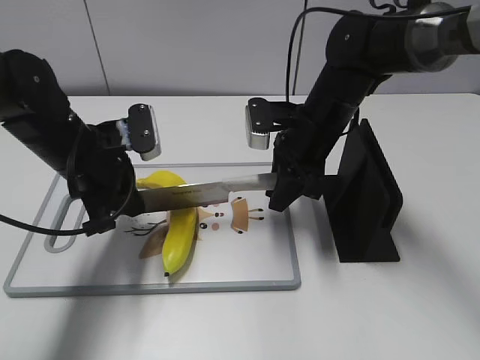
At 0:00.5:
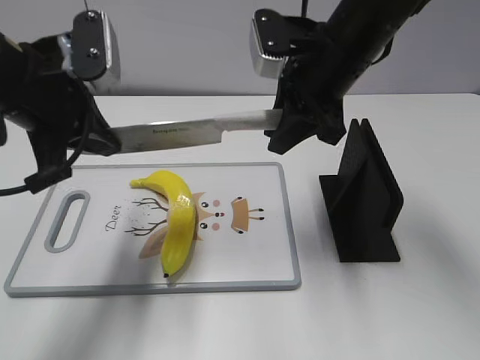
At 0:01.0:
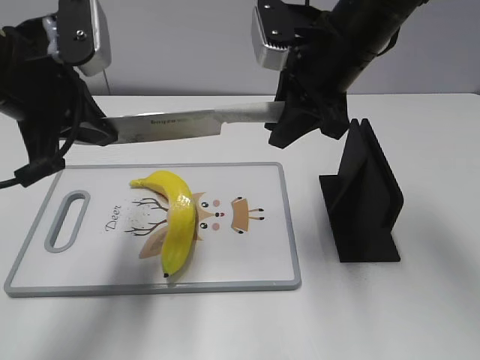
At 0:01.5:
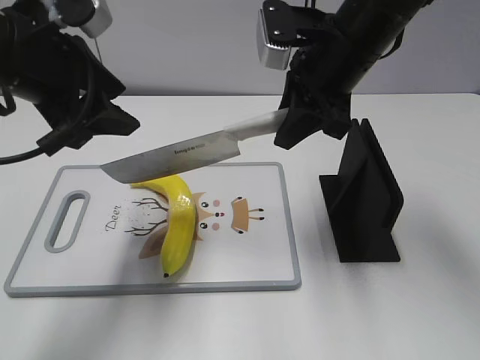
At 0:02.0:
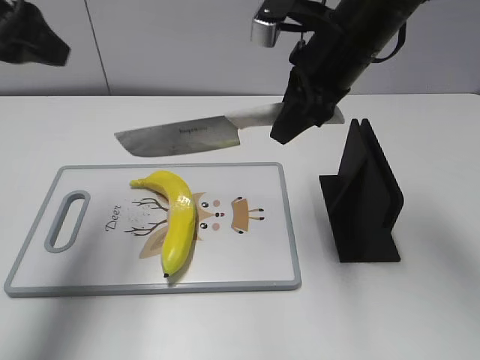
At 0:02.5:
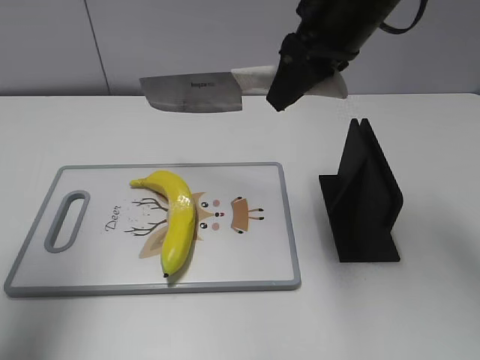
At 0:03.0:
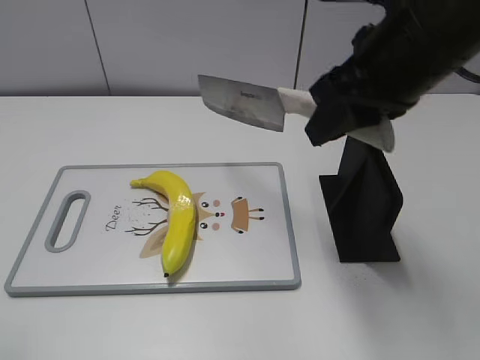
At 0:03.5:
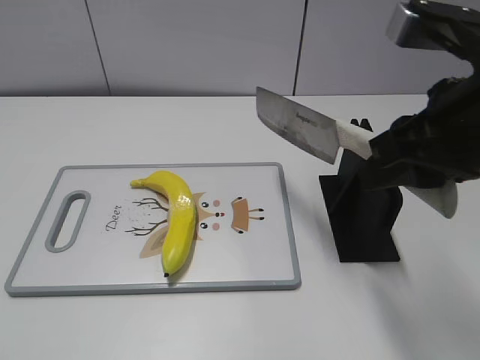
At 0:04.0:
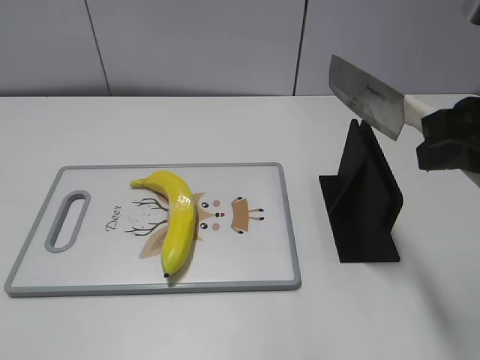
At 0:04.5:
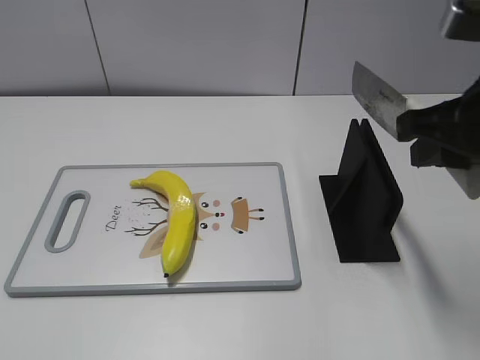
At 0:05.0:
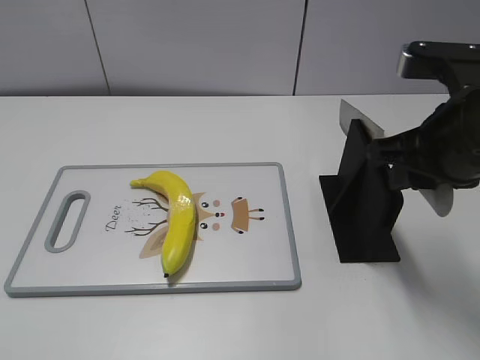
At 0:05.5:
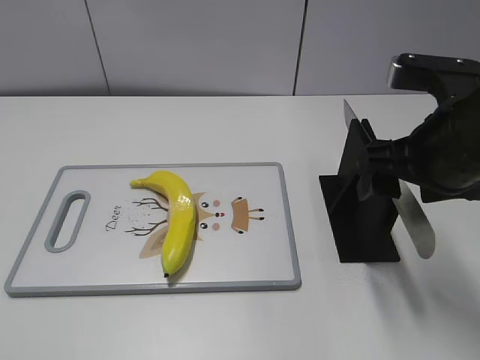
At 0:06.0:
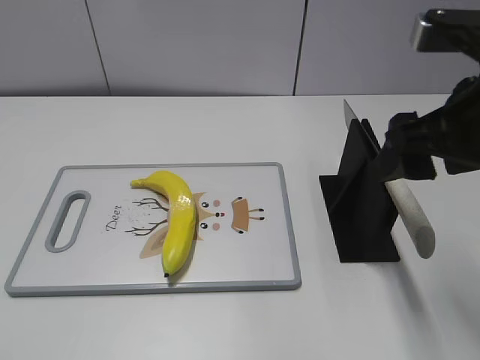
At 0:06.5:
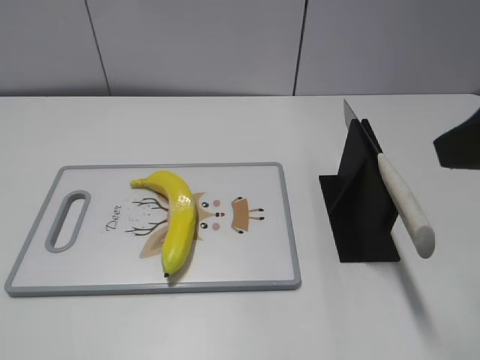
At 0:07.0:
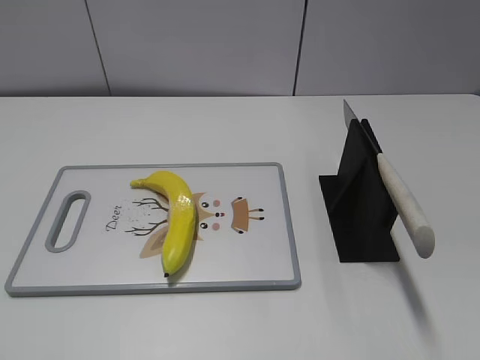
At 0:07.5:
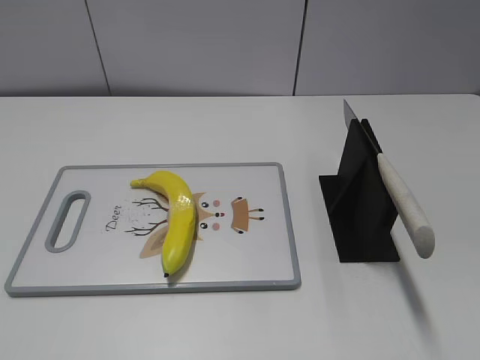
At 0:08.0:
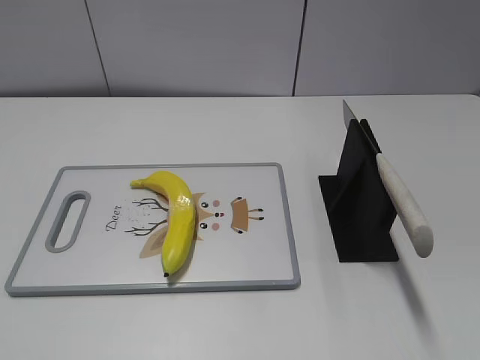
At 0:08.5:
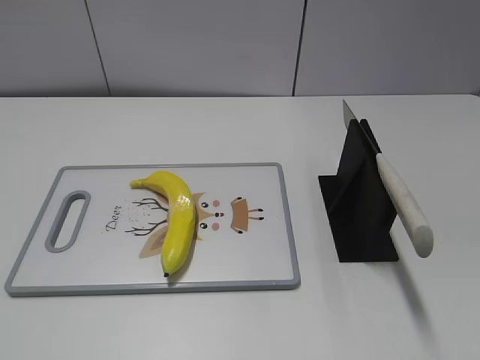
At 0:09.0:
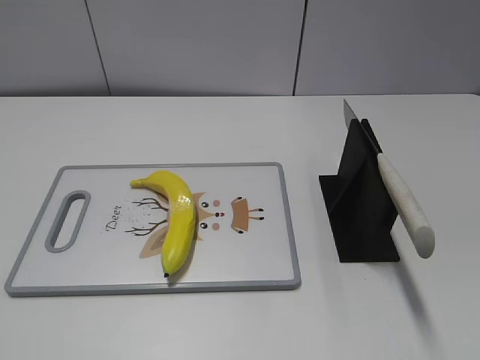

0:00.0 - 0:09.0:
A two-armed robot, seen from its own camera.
Task of the whole recording: cut plastic banana.
Step, 0:02.5 - 0:04.0: Lift the knife with your right hand.
Step, 0:04.5 - 0:09.0: Place the knife on the storage rack with your right hand.
0:00.0 - 0:02.0: The two grippers go approximately 15 cm upward. The left gripper opens its fingers.
0:02.0 - 0:04.5: The left gripper travels backward by some 30 cm; the right gripper goes roughly 15 cm backward and to the right.
0:04.5 - 0:07.0: The right gripper travels backward by about 15 cm, and opens up.

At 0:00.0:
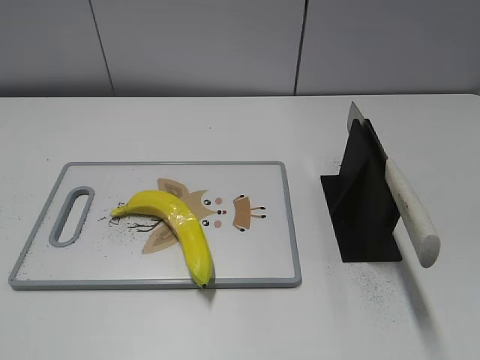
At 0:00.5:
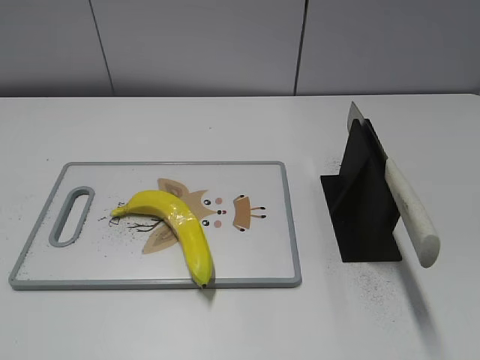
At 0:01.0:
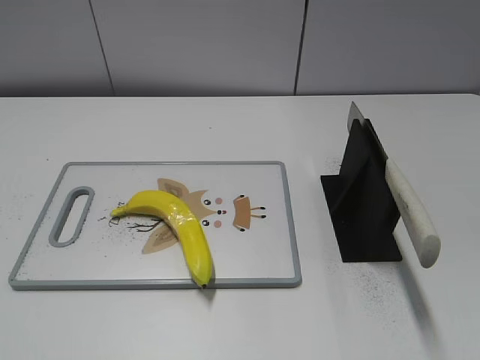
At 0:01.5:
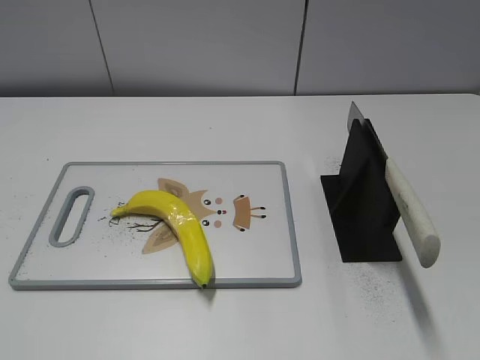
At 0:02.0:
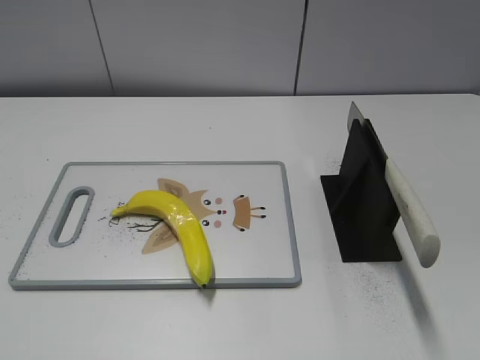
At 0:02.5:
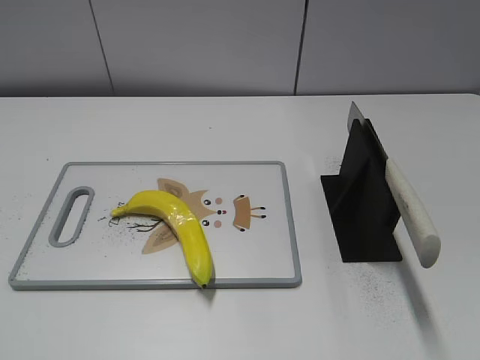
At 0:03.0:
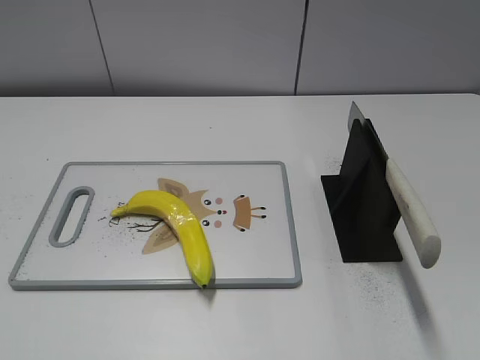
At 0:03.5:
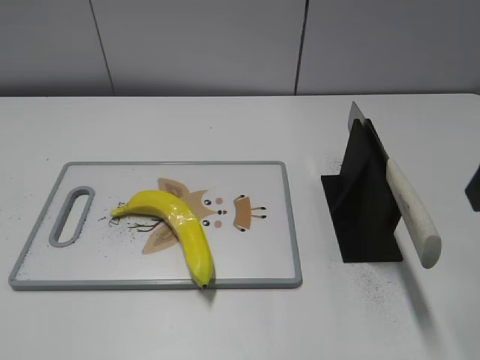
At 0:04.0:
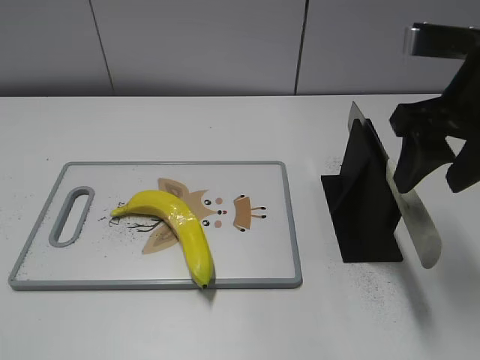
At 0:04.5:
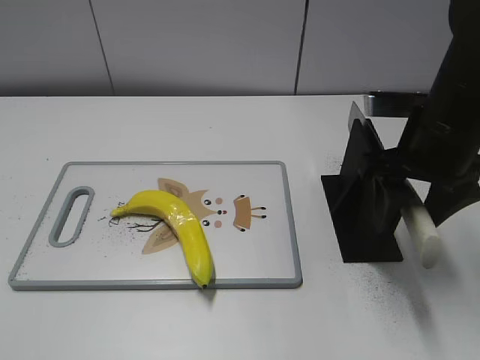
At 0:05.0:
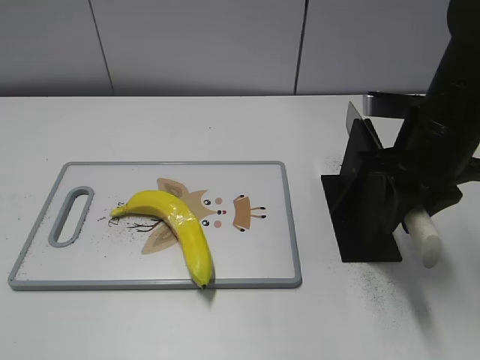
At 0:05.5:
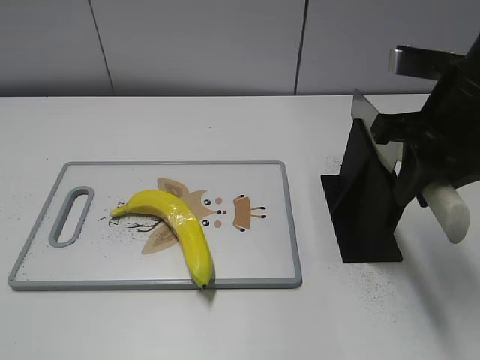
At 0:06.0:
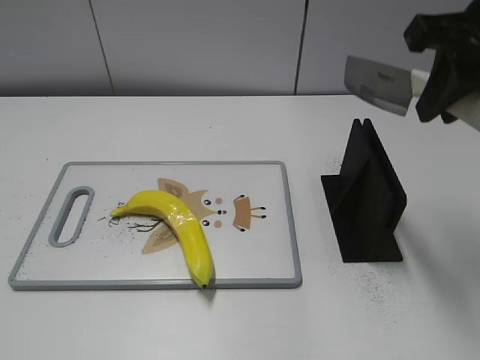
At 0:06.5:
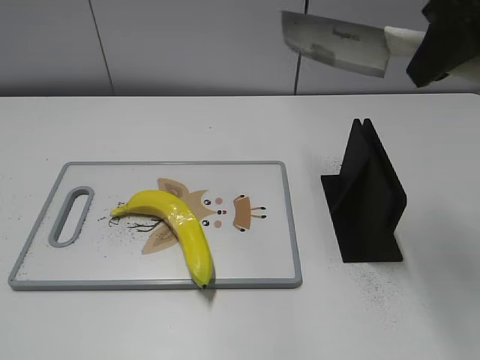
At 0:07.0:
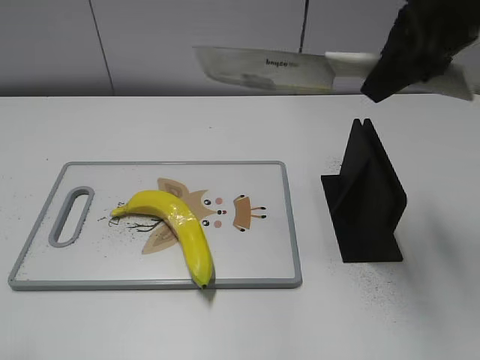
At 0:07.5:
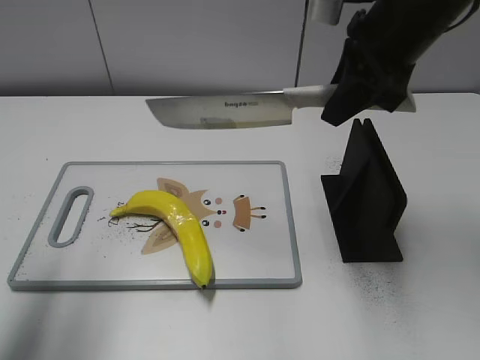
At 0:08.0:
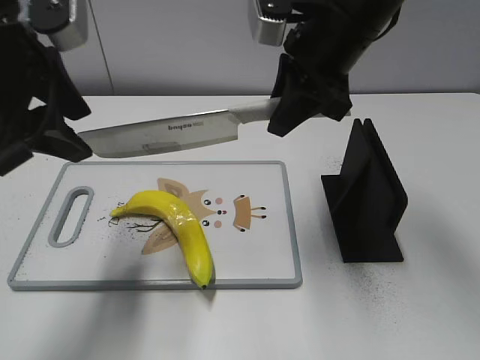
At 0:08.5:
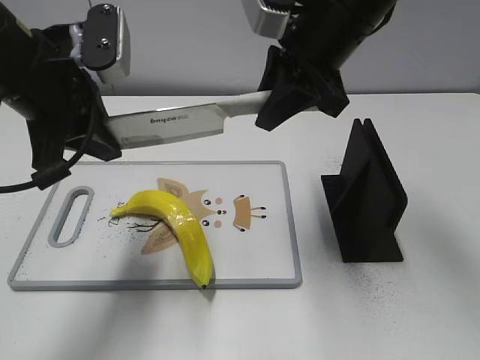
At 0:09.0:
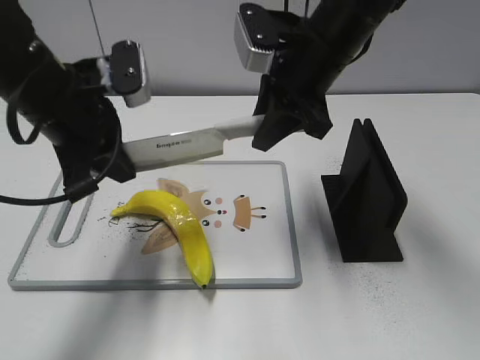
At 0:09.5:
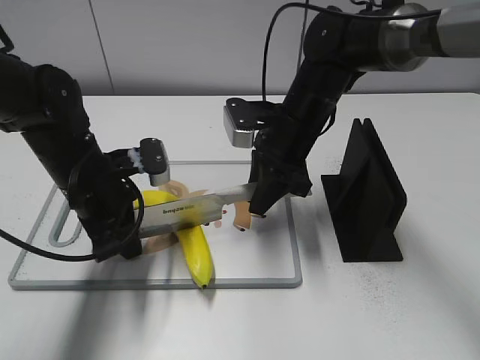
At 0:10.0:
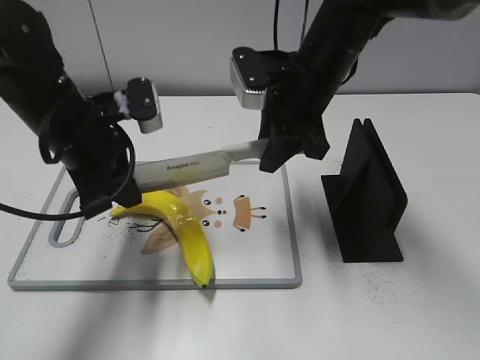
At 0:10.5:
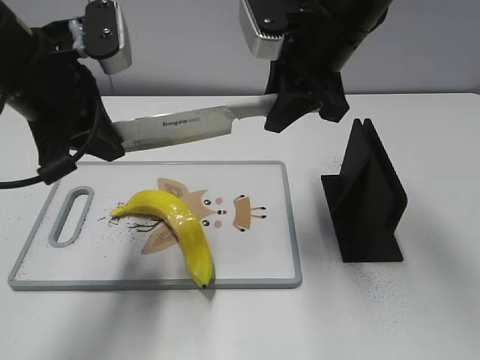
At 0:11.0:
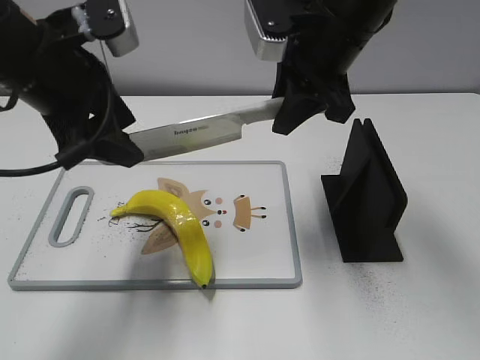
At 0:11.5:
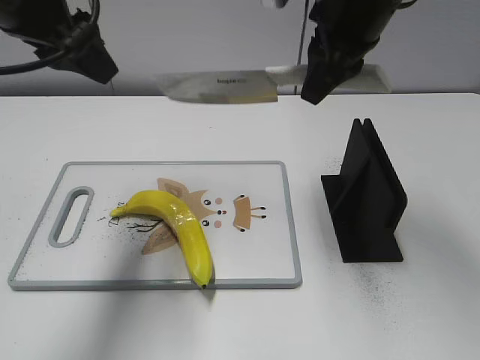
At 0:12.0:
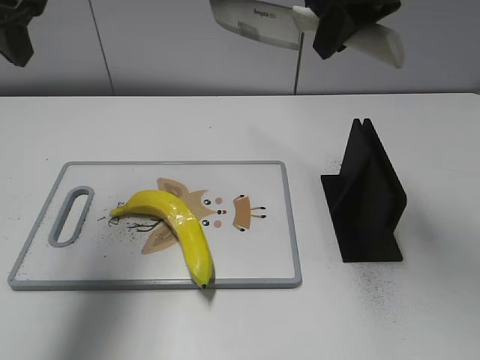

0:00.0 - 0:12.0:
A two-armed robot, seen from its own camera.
Task of the whole recording: cut plastic banana.
Step, 0:00.0 - 0:06.0: Grab the knife handle with your right hand.
Step, 0:06.5 - 0:10.5: Lift the knife with your right hand.
Step, 0:11.0 - 0:11.5: Cut the banana with your right hand.
0:02.0 - 0:04.0: The right gripper shifts about 25 cm forward.
0:04.0 - 0:06.0: The right gripper travels upward by approximately 5 cm, and closes its fingers.
0:06.0 - 0:08.0: The left gripper travels forward and to the right by about 30 cm; the right gripper is displaced to the left, forward and downward by about 15 cm.
0:08.0 - 0:10.0: The right gripper goes approximately 5 cm downward. Meanwhile the left gripper shifts about 10 cm downward, and closes.
0:10.0 - 0:12.0: Both grippers move upward, about 15 cm. The left gripper opens its fingers.

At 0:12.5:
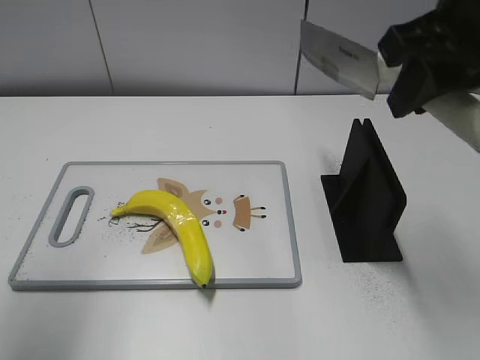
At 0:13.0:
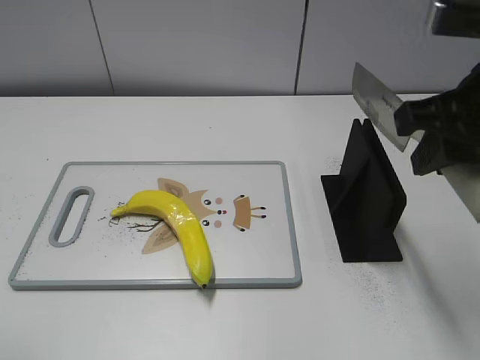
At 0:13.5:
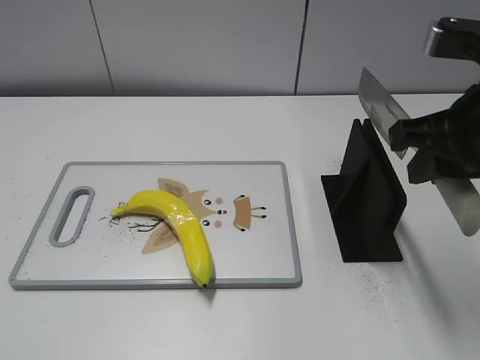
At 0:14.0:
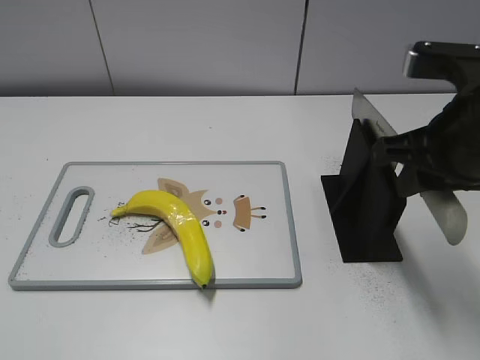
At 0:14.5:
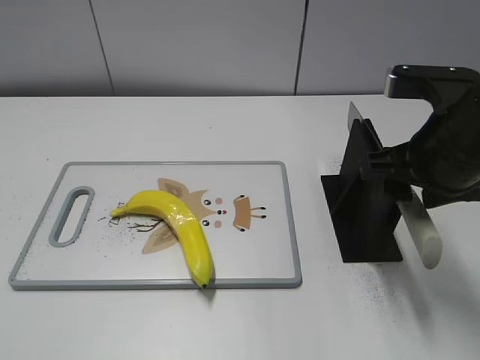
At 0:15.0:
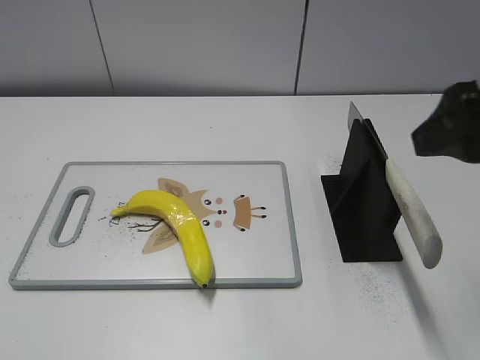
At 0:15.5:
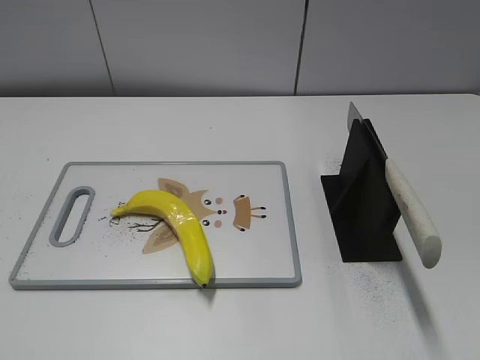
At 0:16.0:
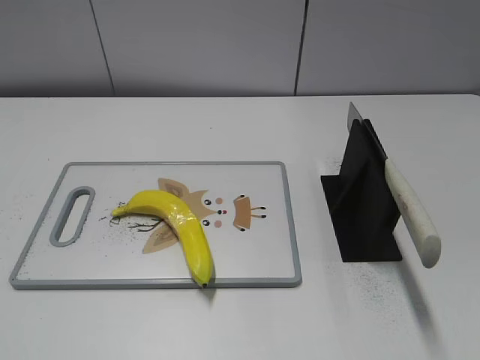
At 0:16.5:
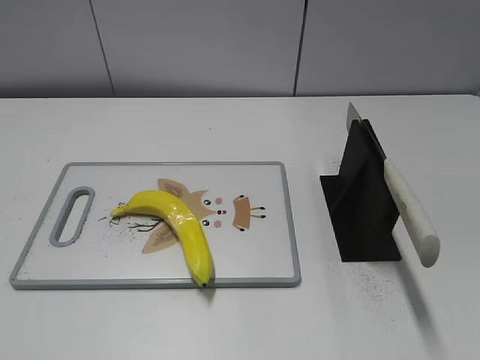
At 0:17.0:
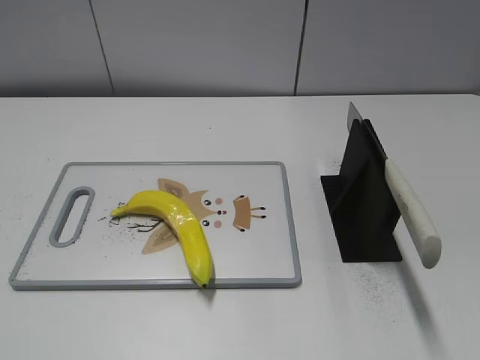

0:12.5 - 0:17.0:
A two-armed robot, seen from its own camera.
Task of the whole recording: cut plastic banana.
Step, 0:13.0 - 0:17.0: Place the knife on the storage rack with your right hand.
0:12.5 - 0:14.5: The left gripper moves backward and downward, roughly 20 cm. Meanwhile the right gripper moves downward, about 10 cm, and opens its fingers.
0:14.5 - 0:17.0: The right gripper moves backward and to the right, some 30 cm.
